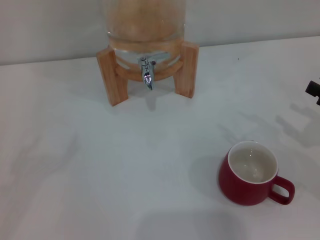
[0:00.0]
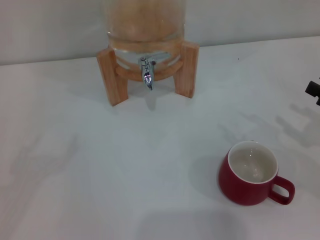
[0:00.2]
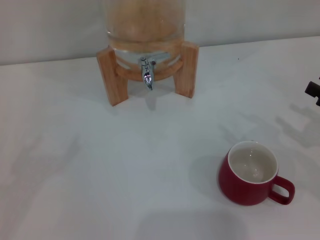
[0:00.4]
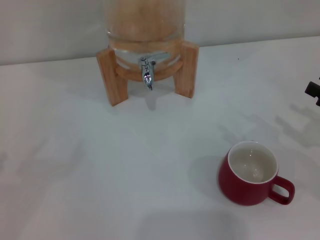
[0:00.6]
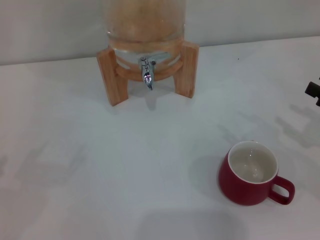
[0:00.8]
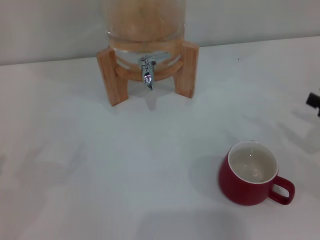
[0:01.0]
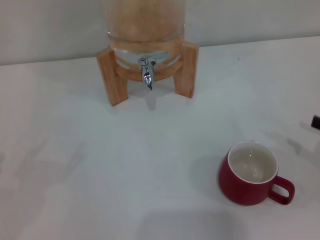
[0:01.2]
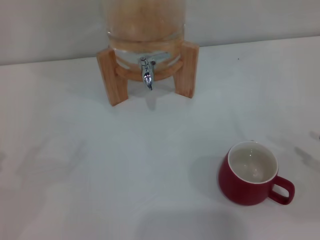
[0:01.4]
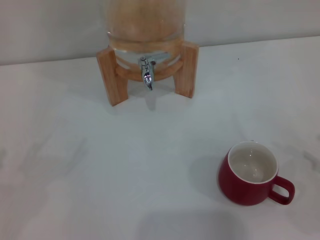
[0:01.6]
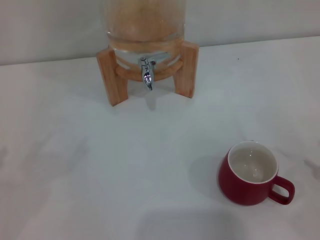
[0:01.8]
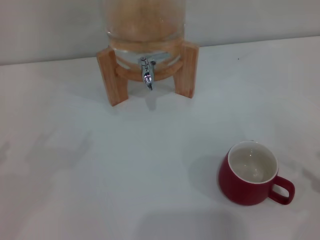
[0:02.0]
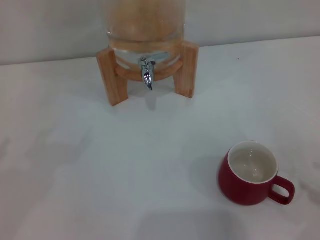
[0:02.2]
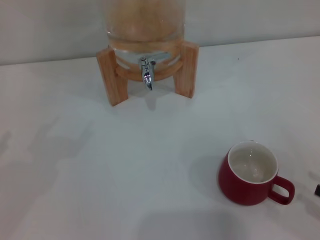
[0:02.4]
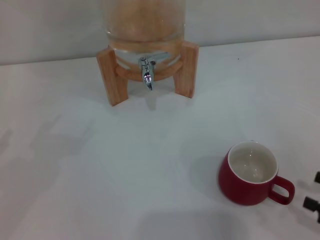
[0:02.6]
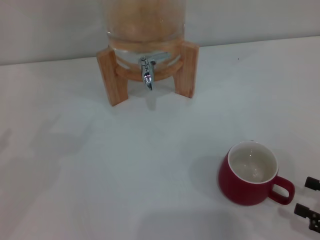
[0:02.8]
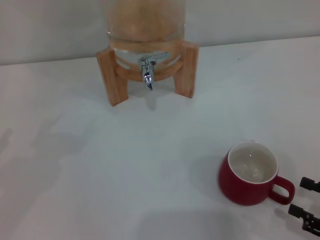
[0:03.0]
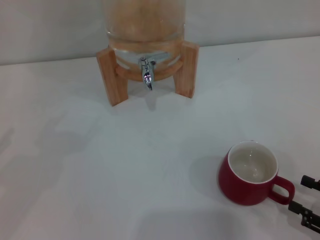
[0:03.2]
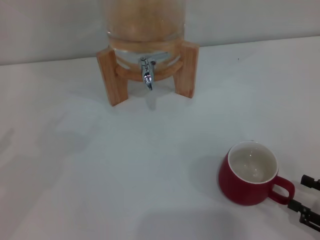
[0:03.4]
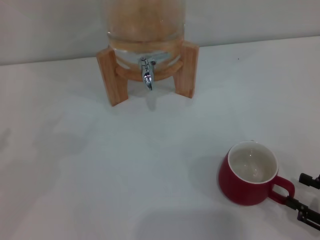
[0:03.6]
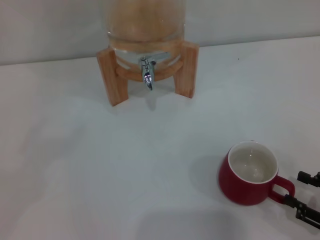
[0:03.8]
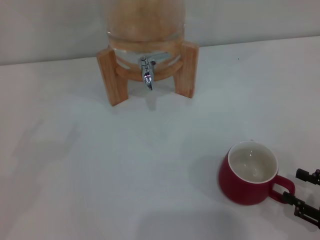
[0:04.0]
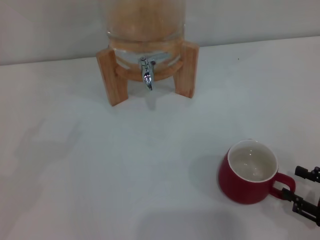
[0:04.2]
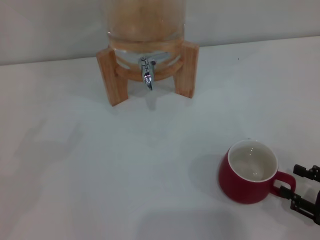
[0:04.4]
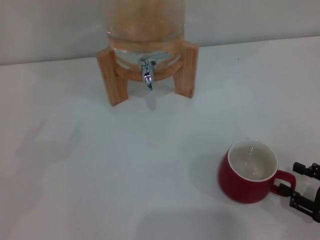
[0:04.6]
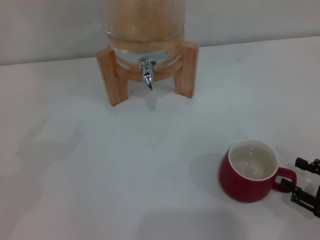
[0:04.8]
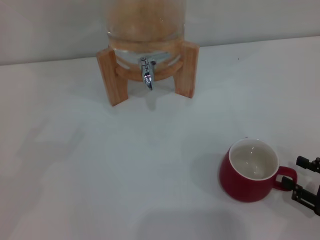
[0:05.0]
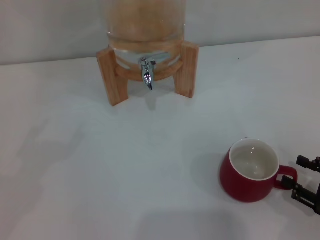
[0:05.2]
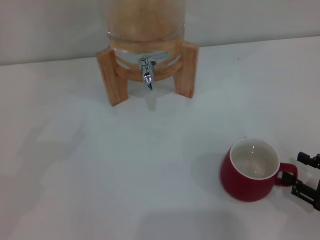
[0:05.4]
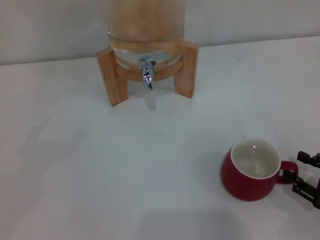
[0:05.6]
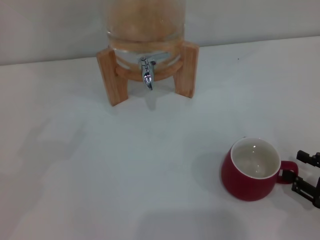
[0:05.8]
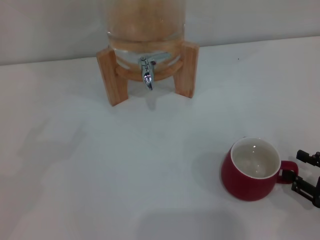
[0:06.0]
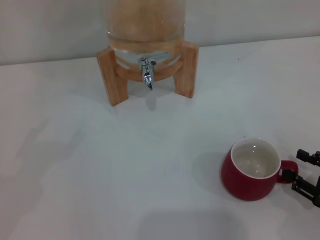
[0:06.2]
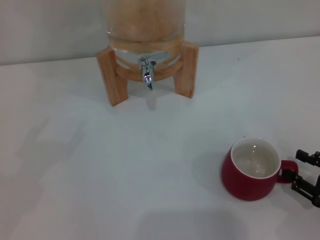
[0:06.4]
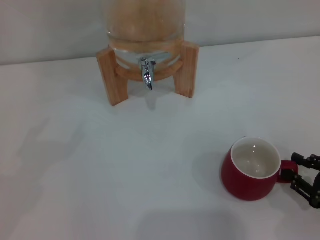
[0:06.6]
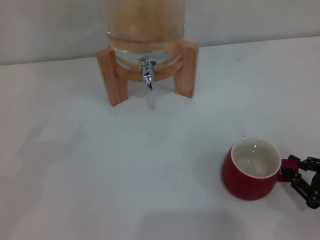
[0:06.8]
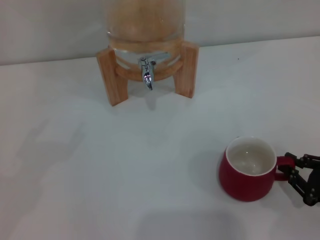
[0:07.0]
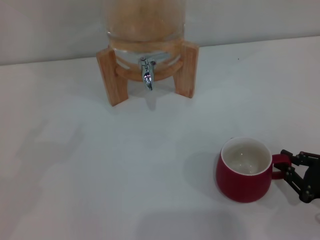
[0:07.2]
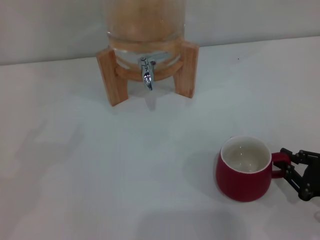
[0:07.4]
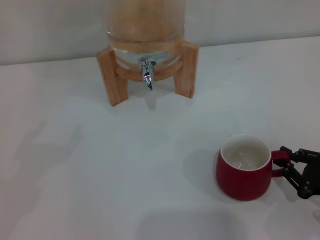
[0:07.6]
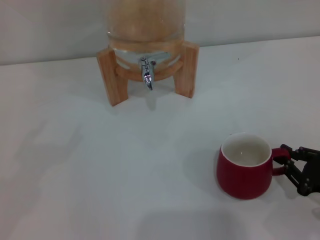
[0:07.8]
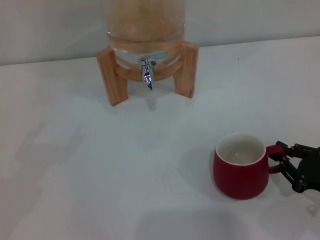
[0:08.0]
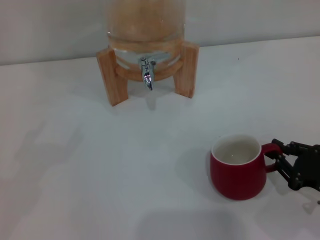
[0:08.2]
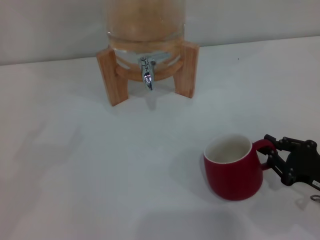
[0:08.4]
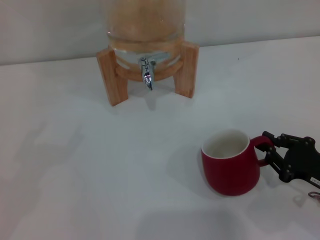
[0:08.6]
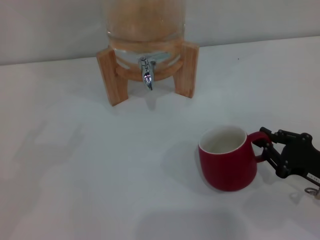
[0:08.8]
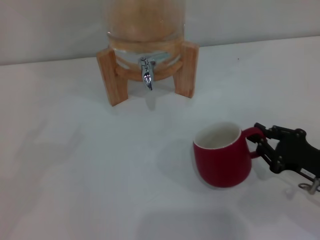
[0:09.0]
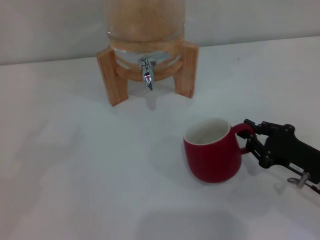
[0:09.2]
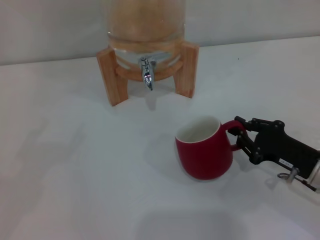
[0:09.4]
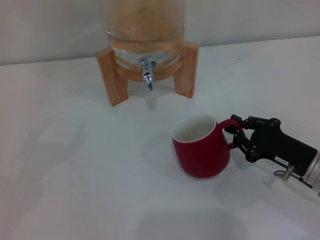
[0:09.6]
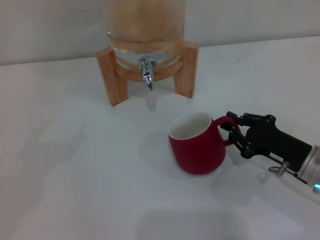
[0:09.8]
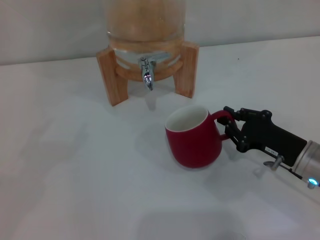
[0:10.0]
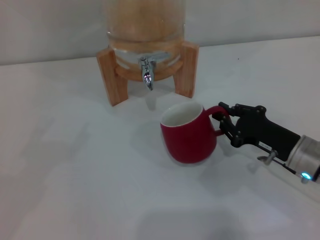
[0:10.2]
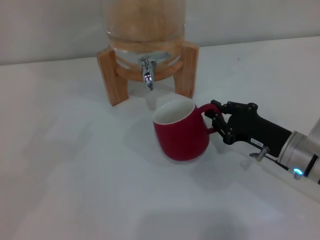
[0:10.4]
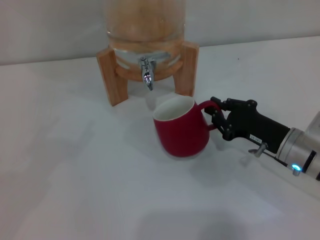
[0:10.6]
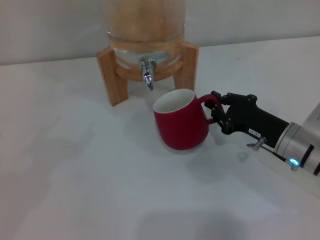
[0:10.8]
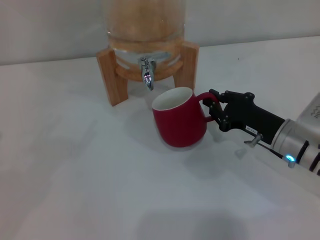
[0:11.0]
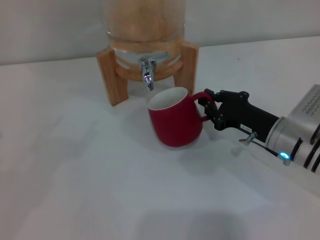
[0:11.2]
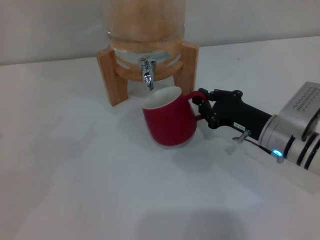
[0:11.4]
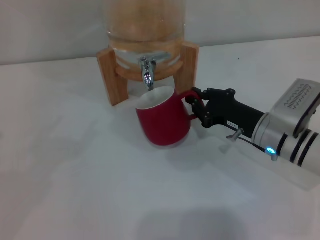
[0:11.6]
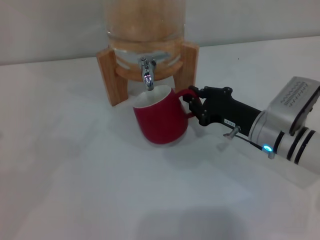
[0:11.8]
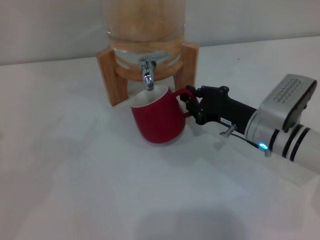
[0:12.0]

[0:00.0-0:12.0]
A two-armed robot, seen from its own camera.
Task of the whole recording: the right gripper pick up the red cup and place it horizontally under the faucet, the left gripper turn on the faucet to fill the cup, and then turn off the faucet.
0:01.6 to 0:03.0: The right gripper travels to the left and downward by some 10 cm.
0:03.0 to 0:06.0: The grippers stay close to where they were, moving slightly.
0:06.0 to 0:07.6: The right gripper closes.
0:07.6 to 0:09.0: The right gripper ends up some 5 cm from where it was.
0:09.0 to 0:10.4: The right gripper moves forward and to the left, approximately 10 cm.
0:10.4 to 0:12.0: The right gripper ends up about 5 cm from where it was.

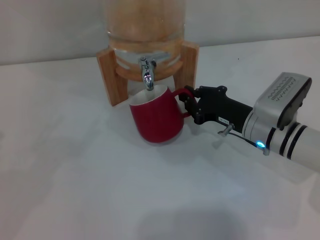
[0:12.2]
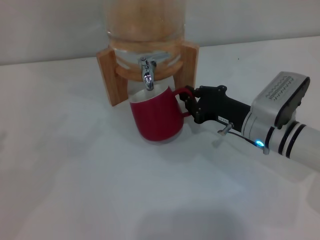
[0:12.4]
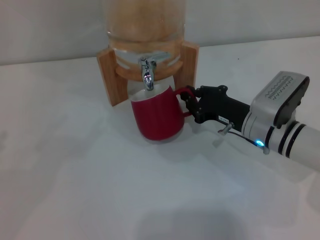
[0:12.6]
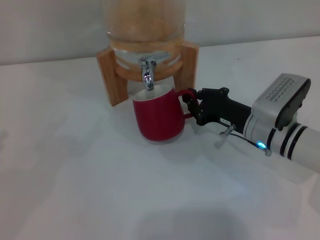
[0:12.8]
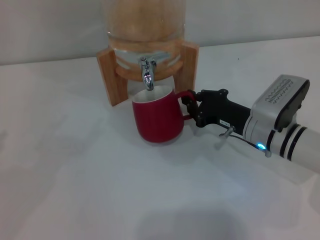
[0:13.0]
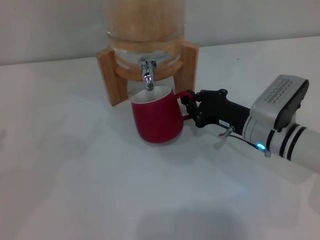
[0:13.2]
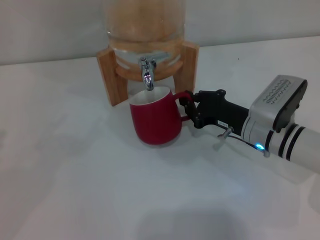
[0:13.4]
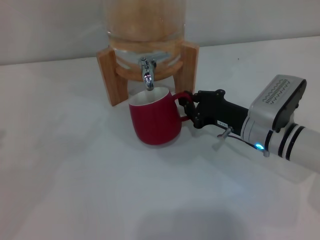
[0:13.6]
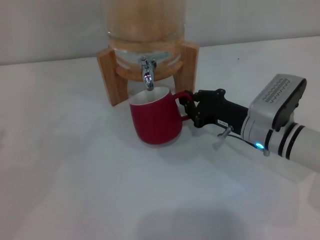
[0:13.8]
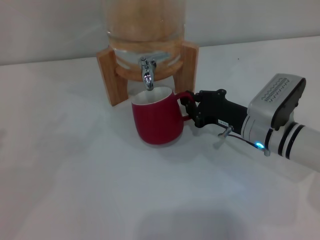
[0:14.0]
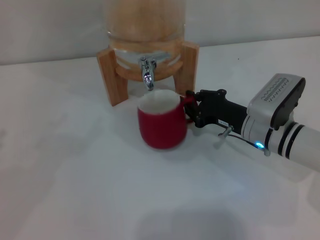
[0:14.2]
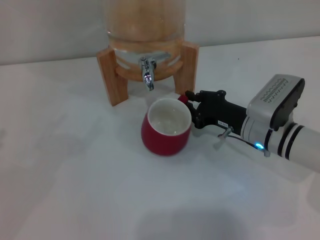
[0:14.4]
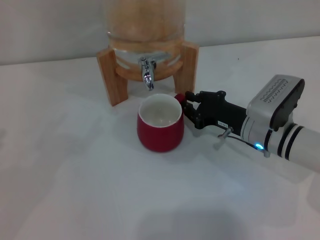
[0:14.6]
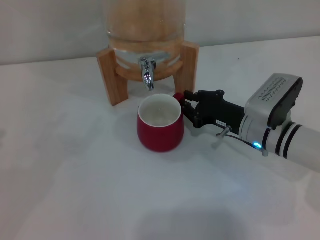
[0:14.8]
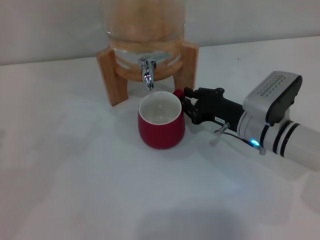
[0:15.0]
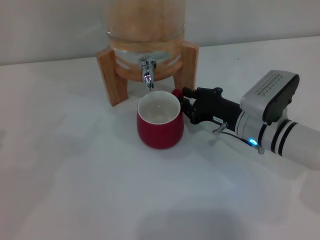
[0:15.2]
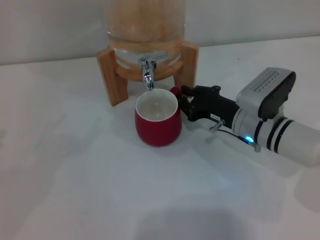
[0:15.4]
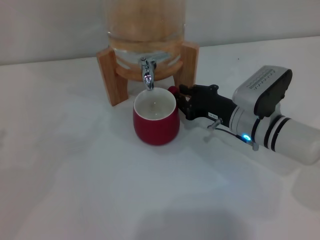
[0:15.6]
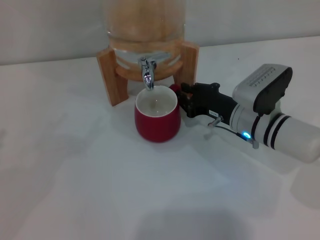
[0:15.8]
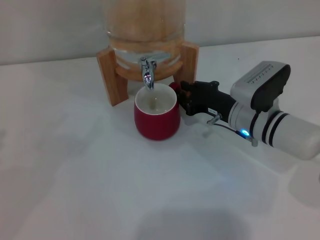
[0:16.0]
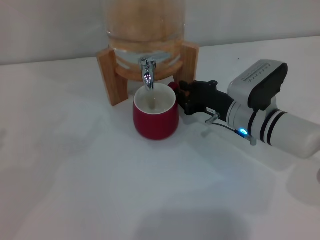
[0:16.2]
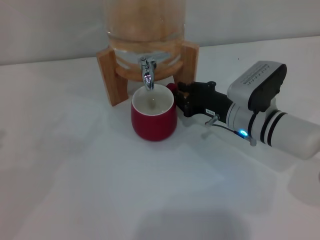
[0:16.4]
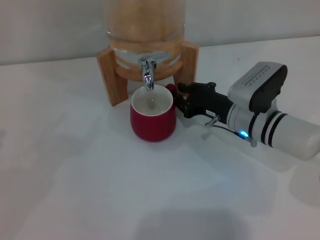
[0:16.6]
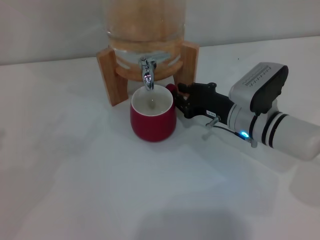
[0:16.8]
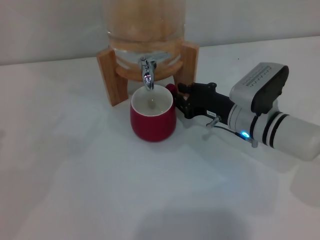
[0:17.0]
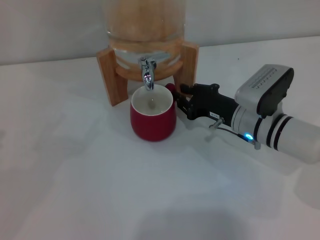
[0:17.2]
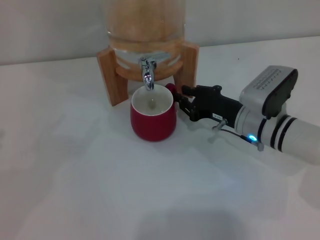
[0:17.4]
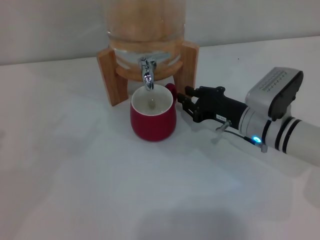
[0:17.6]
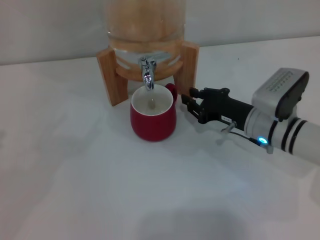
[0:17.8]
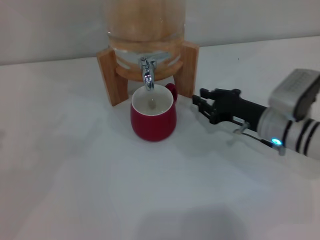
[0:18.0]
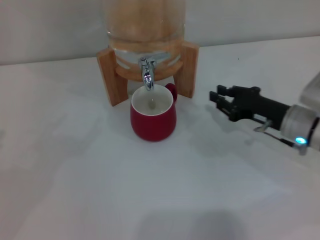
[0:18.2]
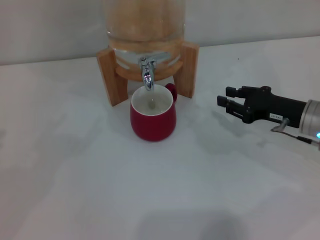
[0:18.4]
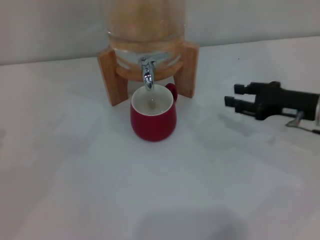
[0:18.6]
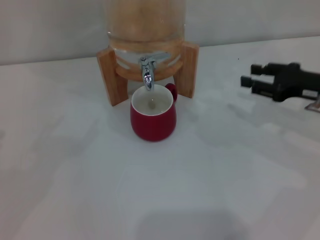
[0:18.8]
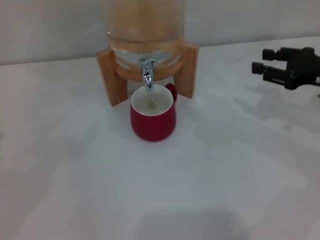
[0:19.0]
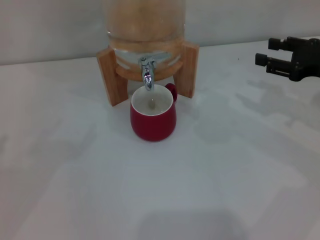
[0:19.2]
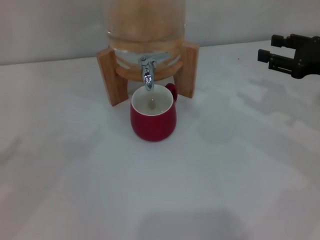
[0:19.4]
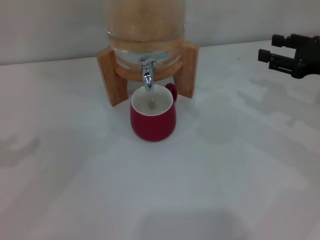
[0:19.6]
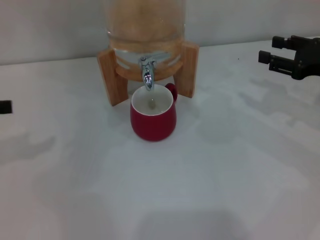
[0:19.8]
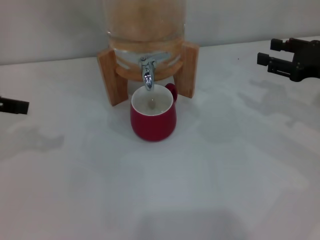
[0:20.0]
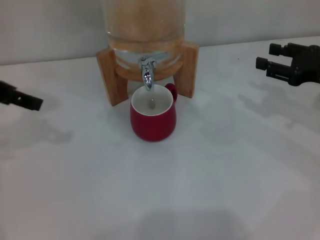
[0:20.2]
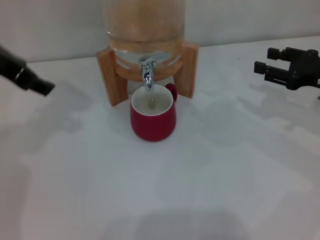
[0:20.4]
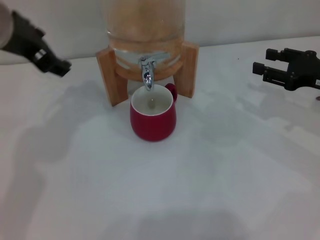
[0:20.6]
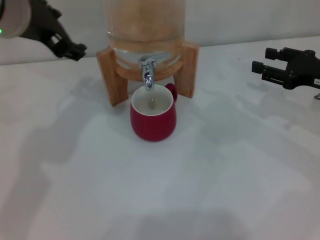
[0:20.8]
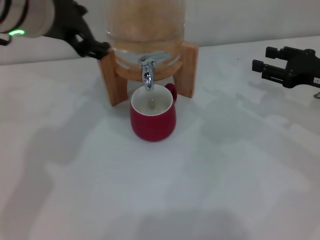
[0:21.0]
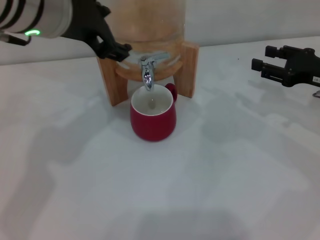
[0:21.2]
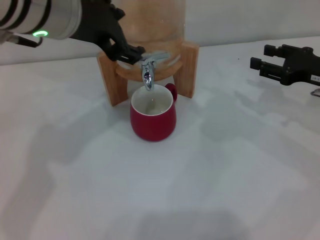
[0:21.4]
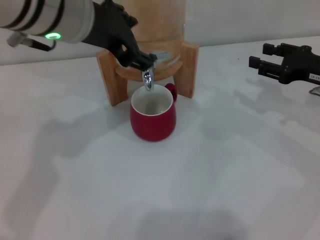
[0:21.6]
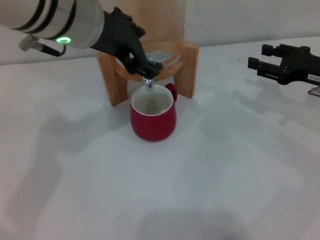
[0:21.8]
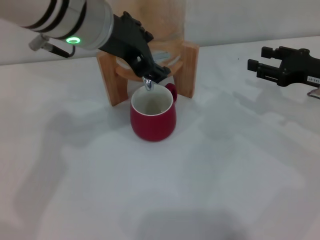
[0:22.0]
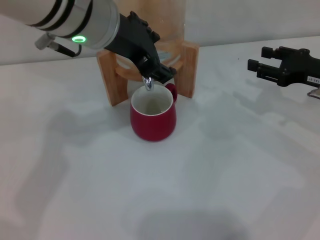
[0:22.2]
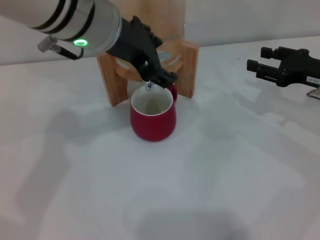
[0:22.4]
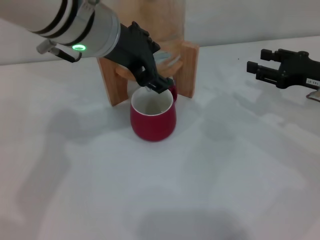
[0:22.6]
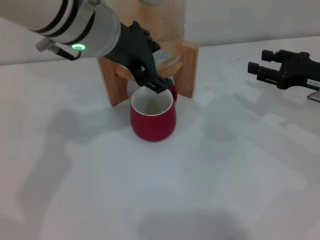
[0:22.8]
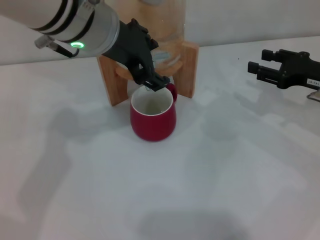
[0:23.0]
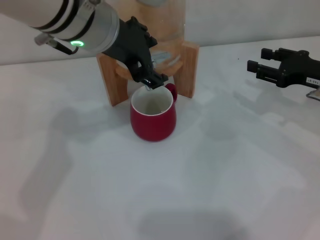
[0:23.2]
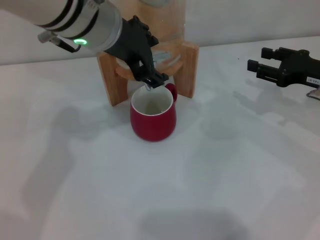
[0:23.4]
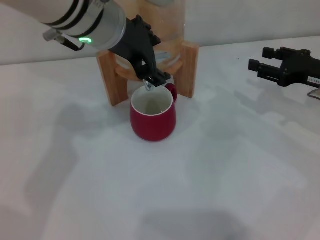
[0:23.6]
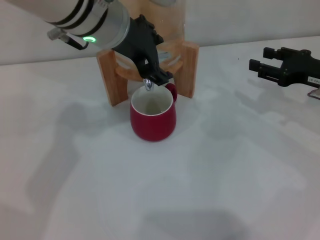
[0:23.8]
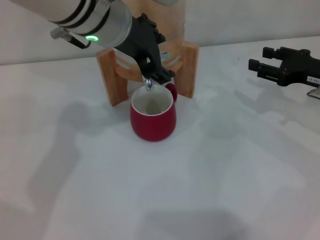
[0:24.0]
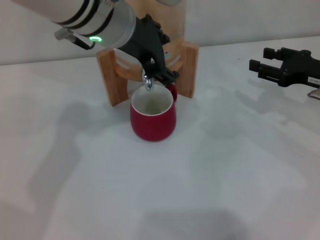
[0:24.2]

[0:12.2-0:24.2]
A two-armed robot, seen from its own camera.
Task of the whole recording: the right gripper pick up the red cup and place it horizontally under the faucet, the left gripper turn on the faucet to fill the cup, and then turn off the faucet.
Step, 0:12.2 to 0:17.6: Move the cup beneath the water dispenser nozzle with the right gripper.
0:12.2 to 0:15.2: The two grippers keep their place.
0:15.2 to 0:16.6: The grippers move only a little.
0:16.6 to 0:18.2: The right gripper goes approximately 10 cm to the right.
0:18.2 to 0:19.8: The right gripper travels upward and to the right by roughly 15 cm, and opens.
0:19.8 to 0:21.2: The left gripper moves to the right, some 25 cm.
0:21.2 to 0:22.6: The grippers move only a little.
0:22.6 to 0:24.2: The grippers make only small movements.
